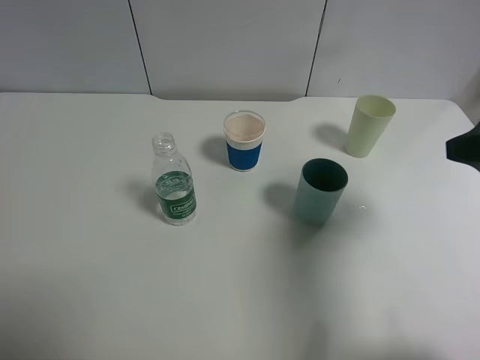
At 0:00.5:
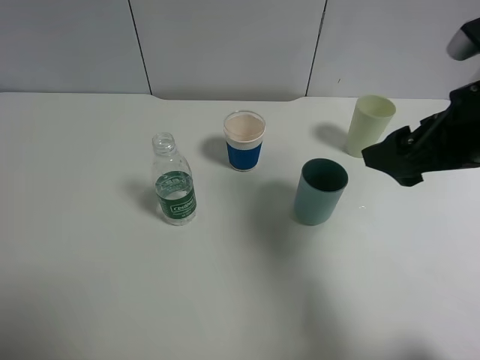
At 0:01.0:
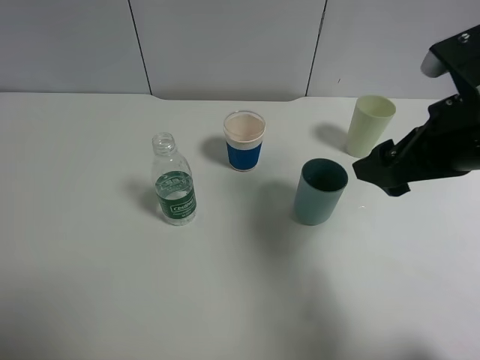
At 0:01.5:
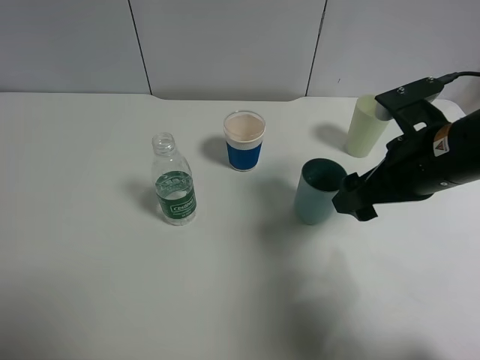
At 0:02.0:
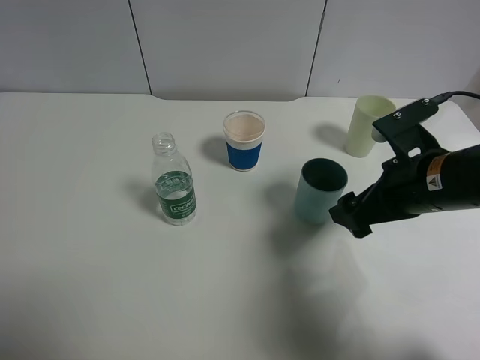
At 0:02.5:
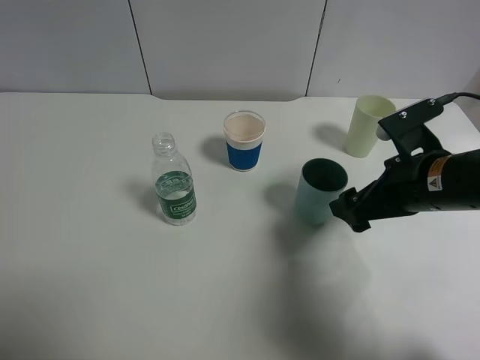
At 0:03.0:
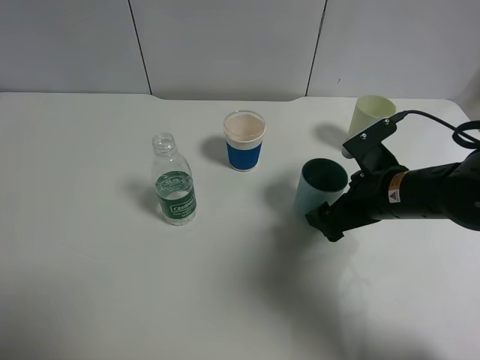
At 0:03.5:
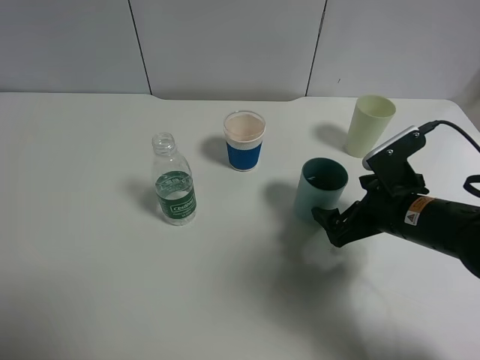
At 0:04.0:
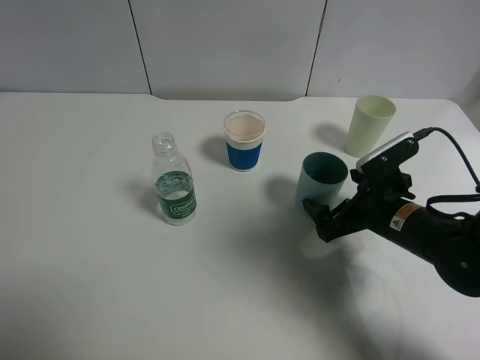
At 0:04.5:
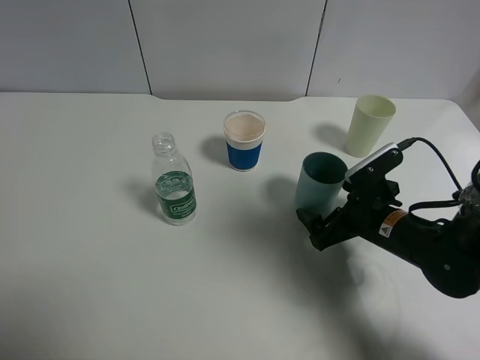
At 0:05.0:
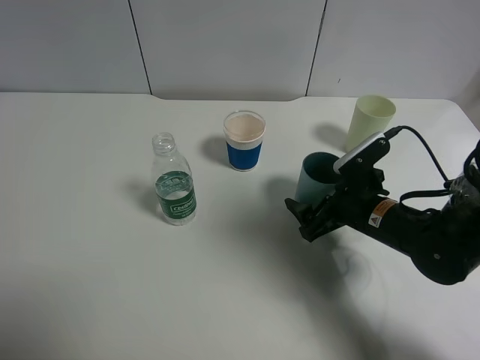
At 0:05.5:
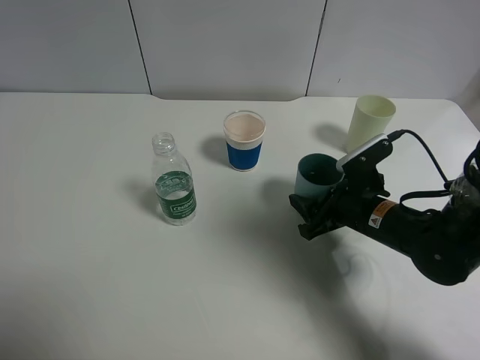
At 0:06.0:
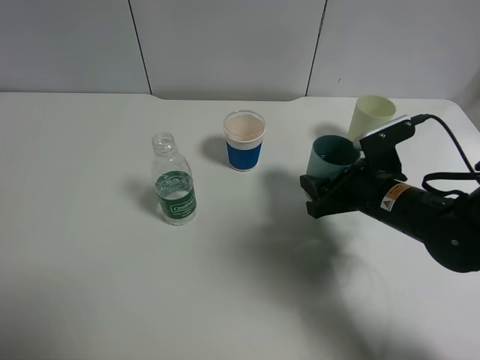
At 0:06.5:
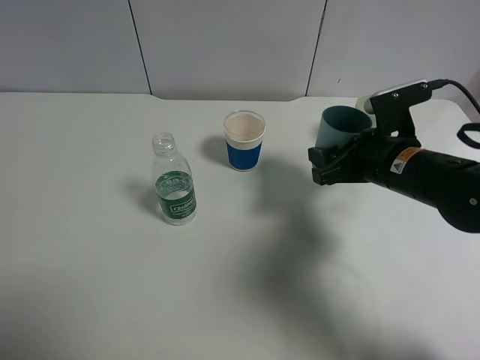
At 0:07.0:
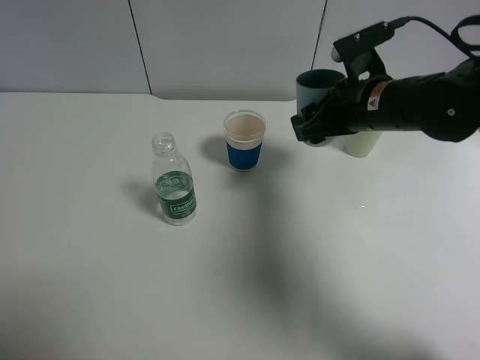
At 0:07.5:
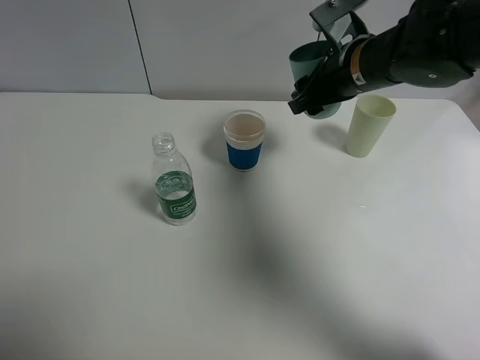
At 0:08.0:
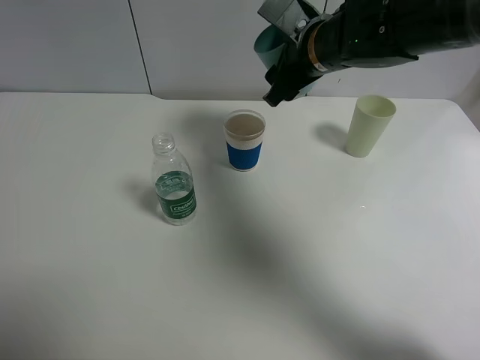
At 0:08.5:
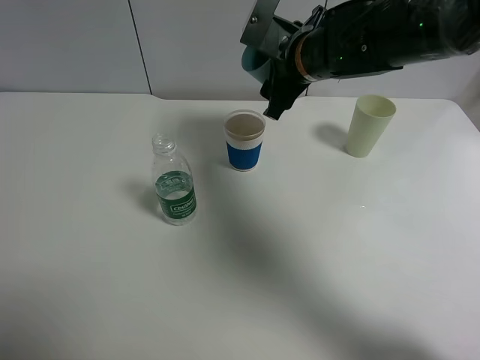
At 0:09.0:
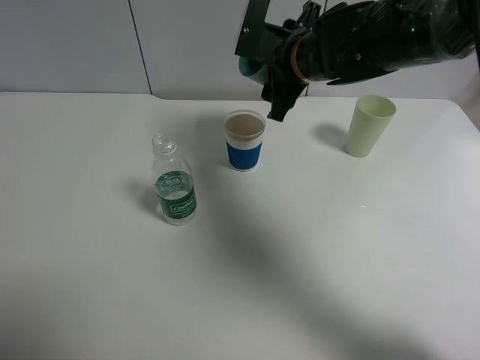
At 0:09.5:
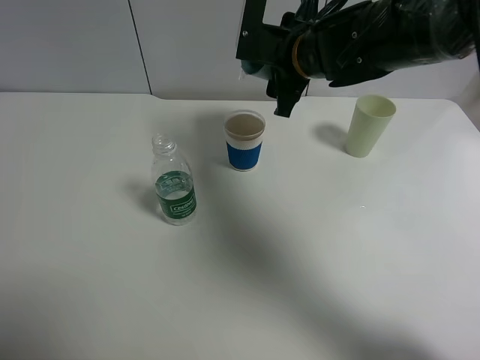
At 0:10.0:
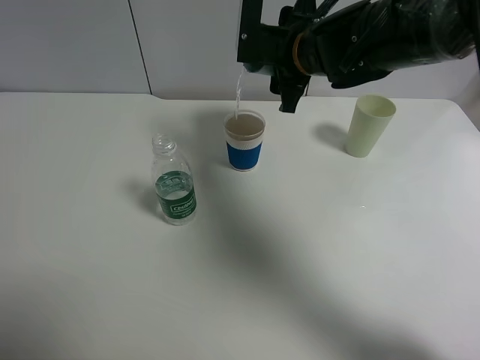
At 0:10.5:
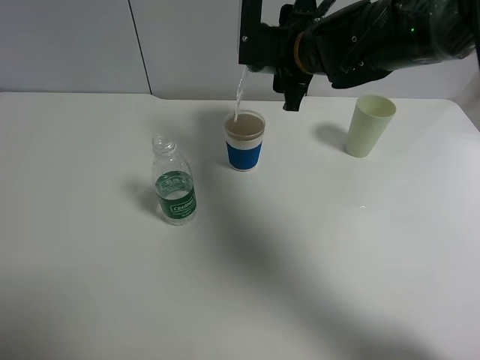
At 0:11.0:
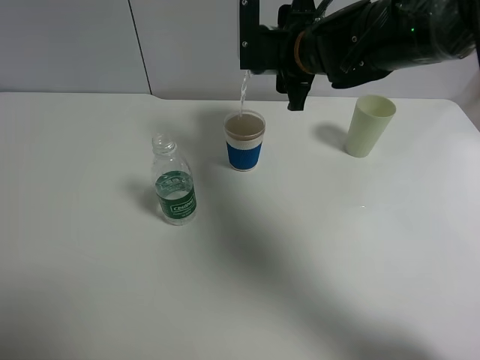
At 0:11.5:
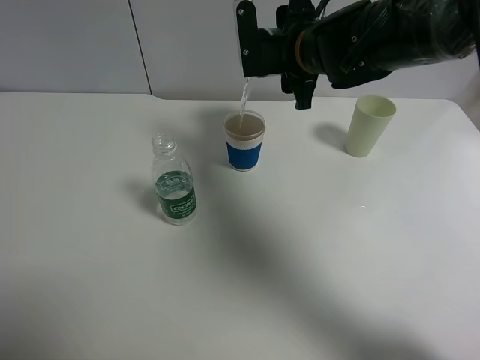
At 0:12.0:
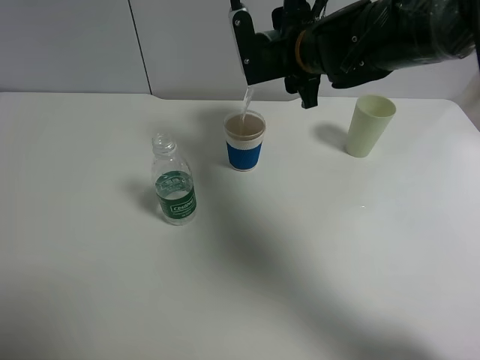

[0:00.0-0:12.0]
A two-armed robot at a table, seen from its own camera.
Task of the whole recording: use a clamp to hold the bottle of the drink, pour the beverage into a random cup, then clamp the cup containing the drink and pour the drink into another random cup.
Step, 0:00.0 to 0:06.0: Pick up the blue plastic cup with right gripper.
0:00.0 to 0:02.0: The right gripper moves downward, to the left and forward, about 15 cm.
0:02.0 to 0:04.0: The right gripper moves downward, roughly 10 cm.
0:04.0 to 0:06.0: The right gripper closes its fingers.
0:06.0 to 0:08.0: The right gripper travels upward, forward and to the left by roughly 20 cm.

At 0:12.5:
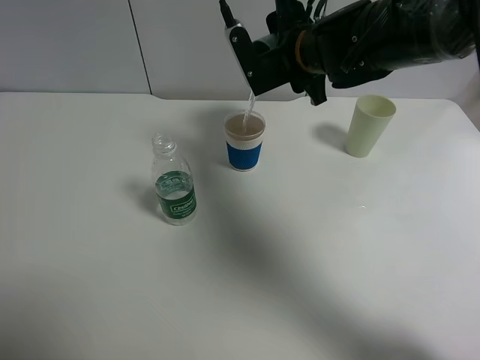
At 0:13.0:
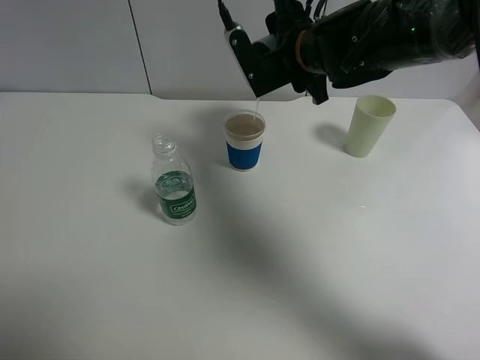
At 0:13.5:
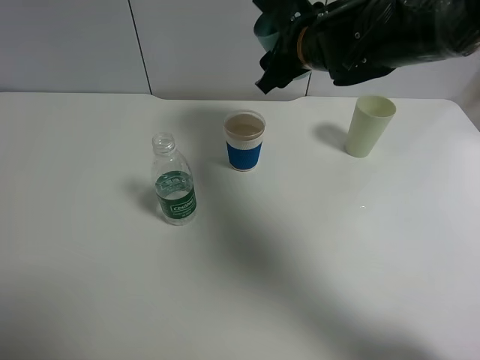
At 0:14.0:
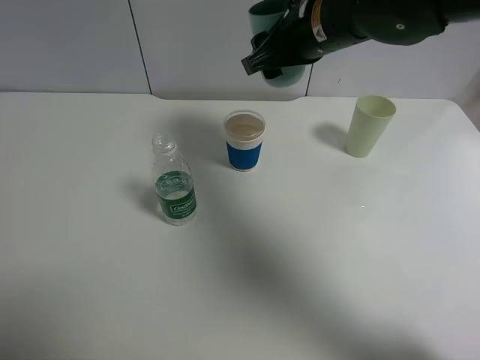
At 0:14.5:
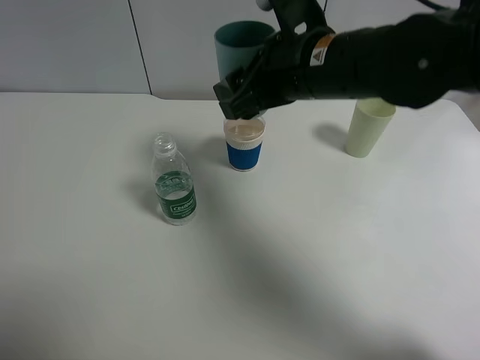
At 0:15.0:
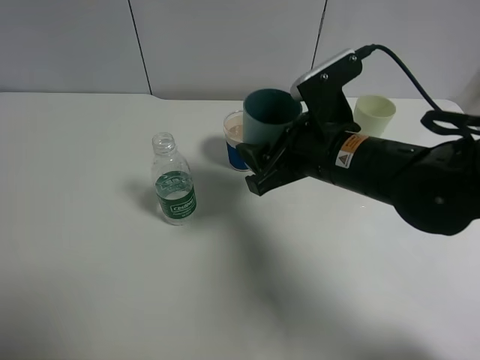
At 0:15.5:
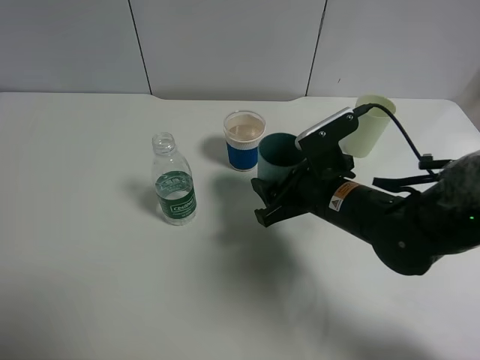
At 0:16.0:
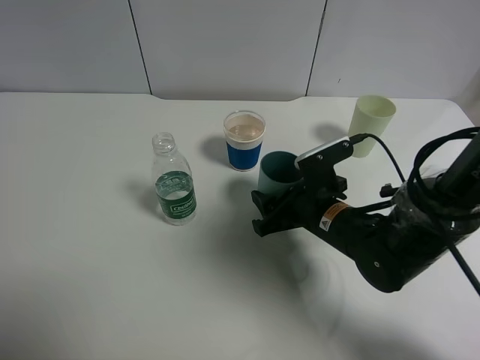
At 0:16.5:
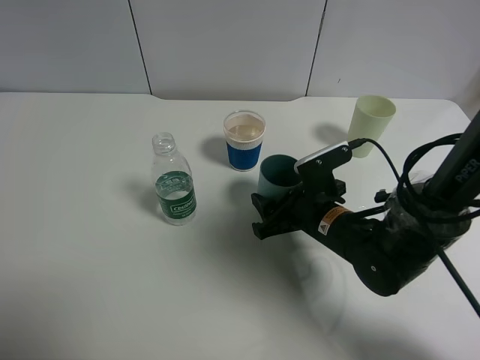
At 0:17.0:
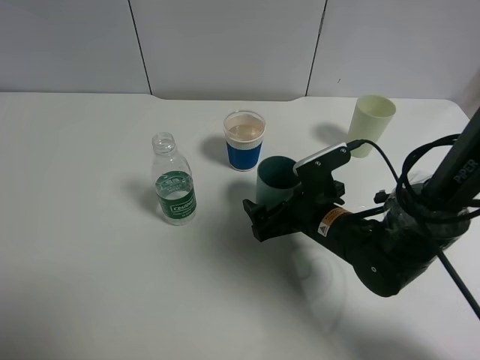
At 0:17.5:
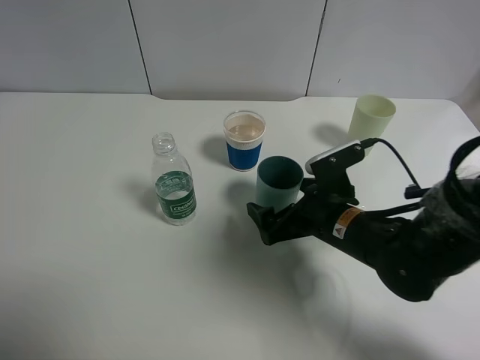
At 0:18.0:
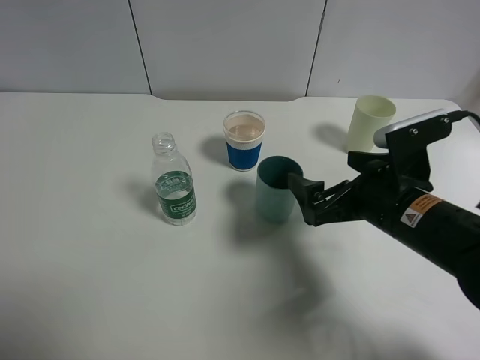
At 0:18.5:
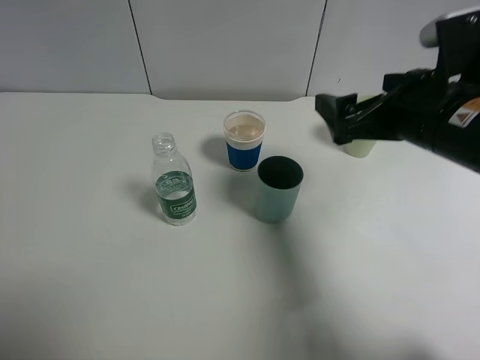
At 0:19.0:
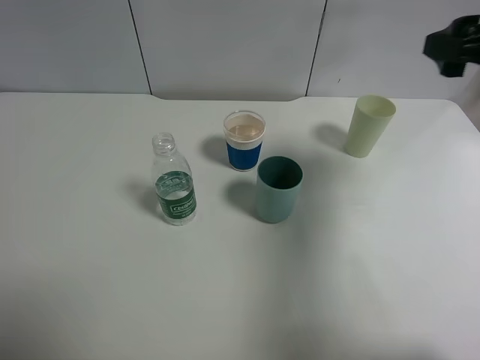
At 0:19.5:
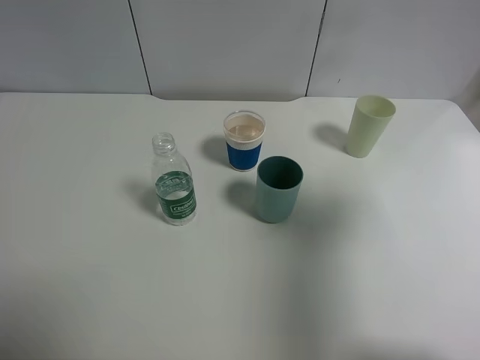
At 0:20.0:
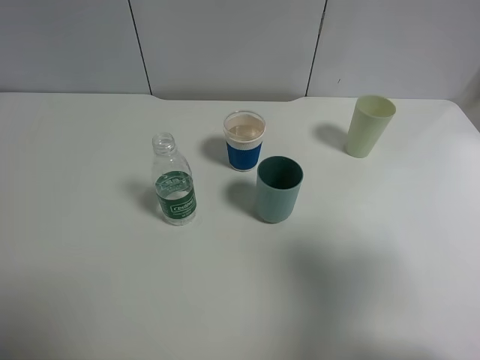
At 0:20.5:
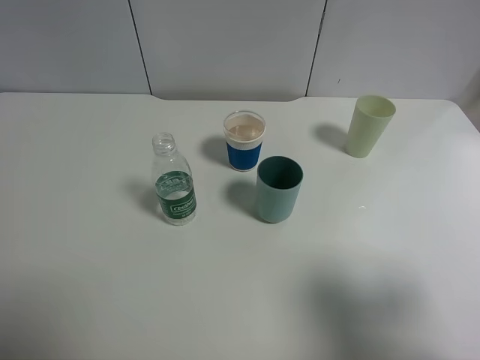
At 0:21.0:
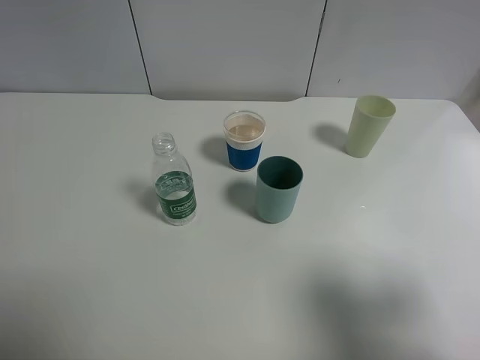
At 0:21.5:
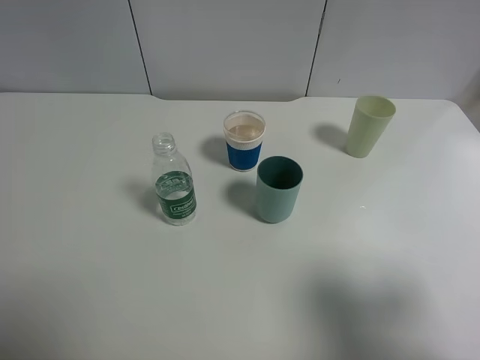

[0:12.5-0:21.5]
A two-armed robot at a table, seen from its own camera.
Task of the whole recording: use a clamp to hold the bottle of the drink, pour the beverage into a random cup, then clamp the cup containing the drink and pour the drink into another random cup.
Step, 0:13.5 to 0:17.5: Place the blue plastic cup on the table with right gripper.
0:12.5 to 0:14.5: The right gripper goes about 10 cm backward.
0:14.5 to 0:17.0: The right gripper goes about 20 cm downward, and opens its fingers.
0:17.0 to 0:19.5: The right gripper heads upward and to the right, covering about 35 cm.
0:19.5 to 0:21.5: The right gripper shifts roughly 15 cm backward and downward.

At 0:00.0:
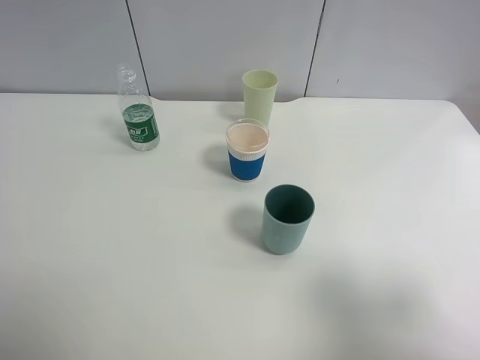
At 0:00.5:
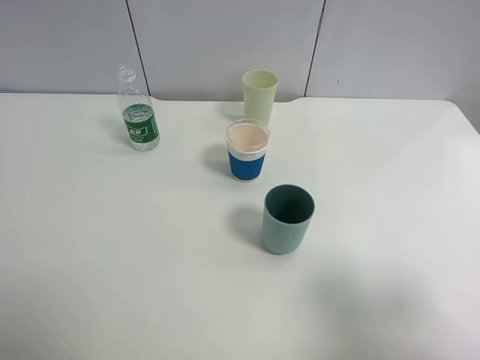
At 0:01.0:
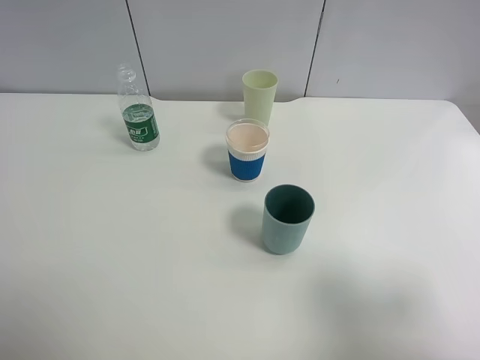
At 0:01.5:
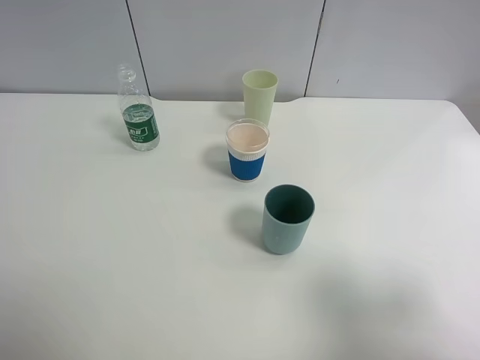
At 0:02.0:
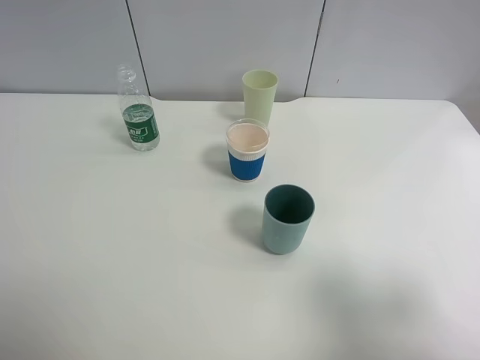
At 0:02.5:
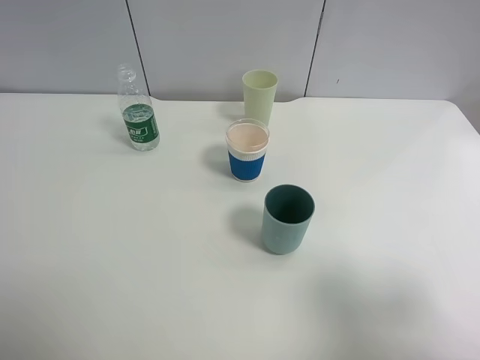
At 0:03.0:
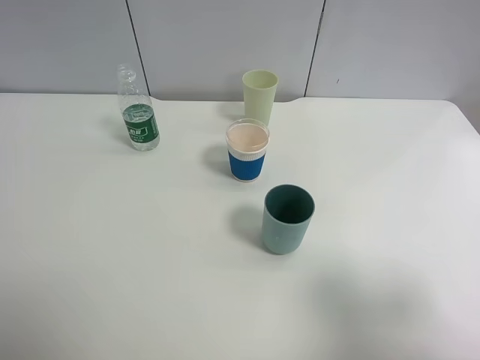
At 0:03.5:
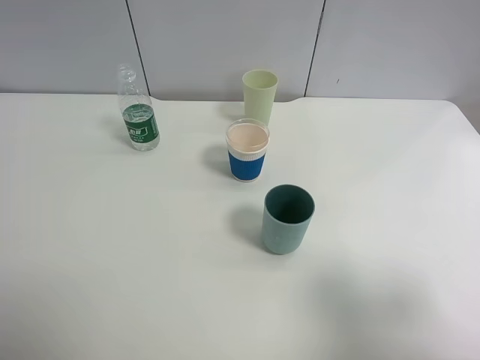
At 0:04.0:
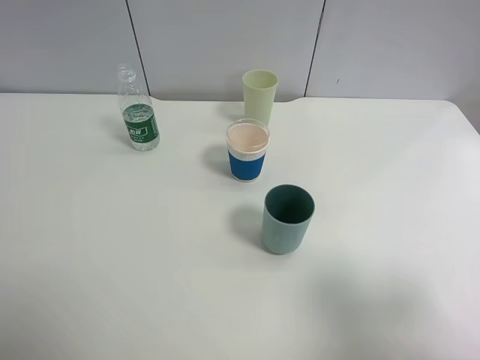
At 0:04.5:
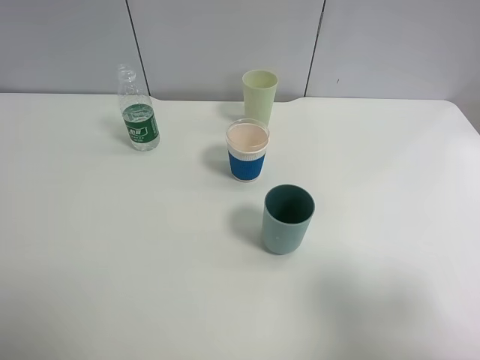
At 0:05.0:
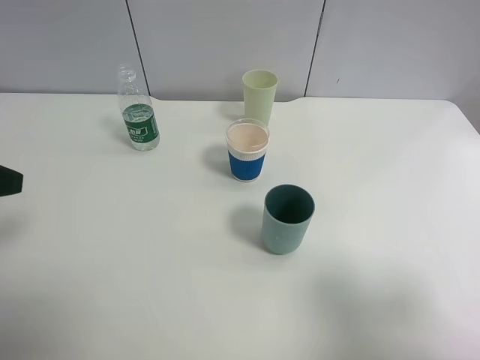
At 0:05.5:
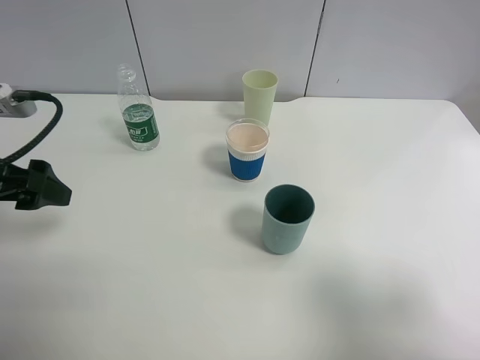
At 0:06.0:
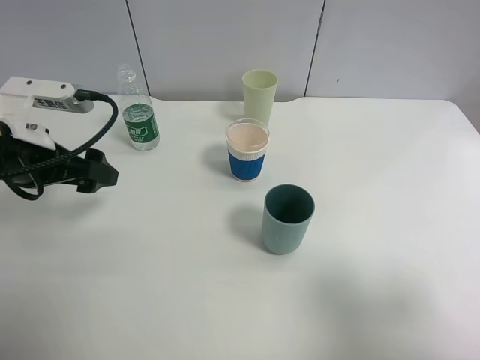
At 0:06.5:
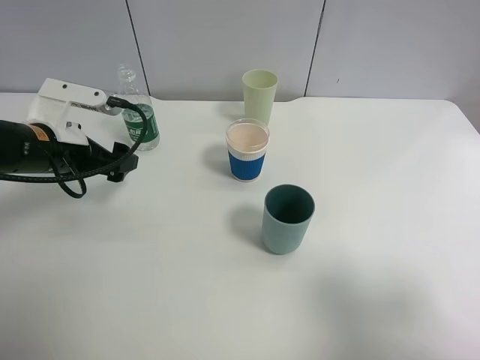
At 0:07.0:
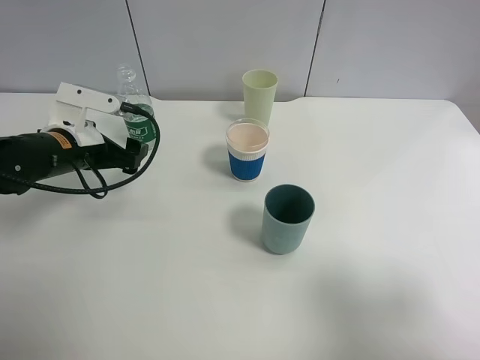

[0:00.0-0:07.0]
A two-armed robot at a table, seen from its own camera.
Task of the whole recording: use a clamp to hold the bottle of the drink, pour the beverage into a random cup, then clamp the cup containing the drink and pour the drink into another random cup.
0:00.0 to 0:03.5: Neither gripper changes place.
0:05.0 to 0:07.0: The left gripper moves forward, downward and to the right, some 20 cm.
